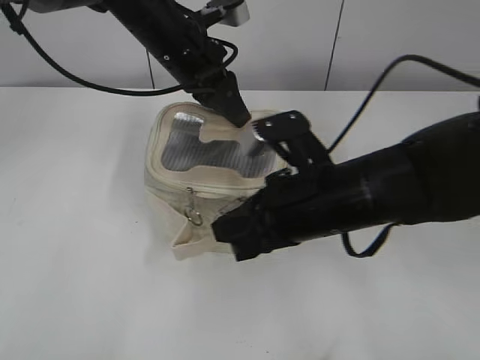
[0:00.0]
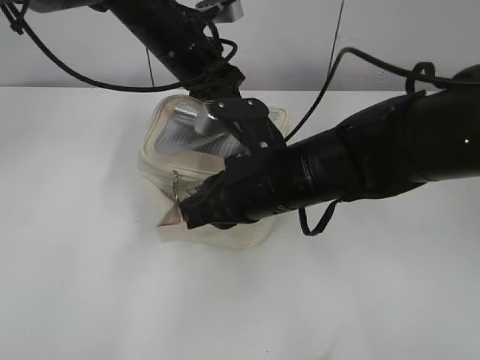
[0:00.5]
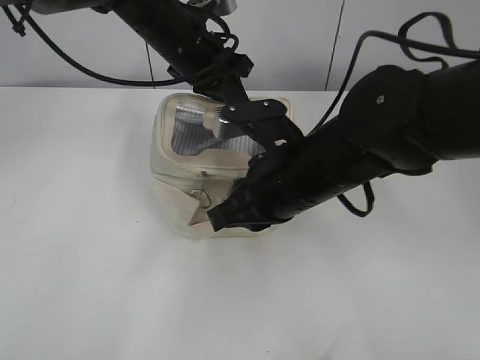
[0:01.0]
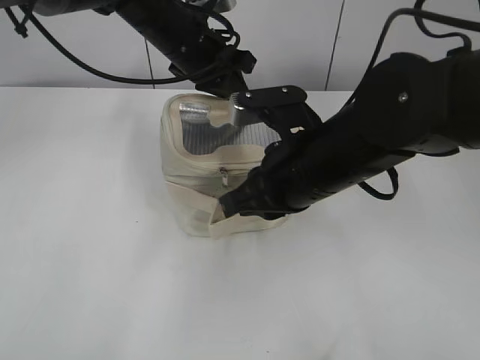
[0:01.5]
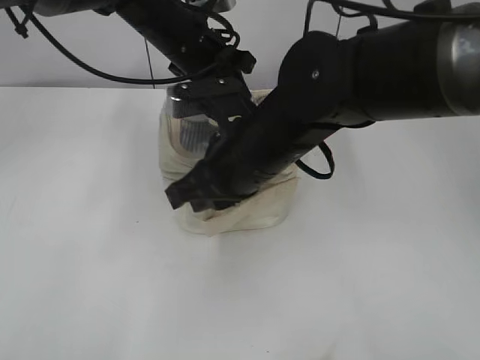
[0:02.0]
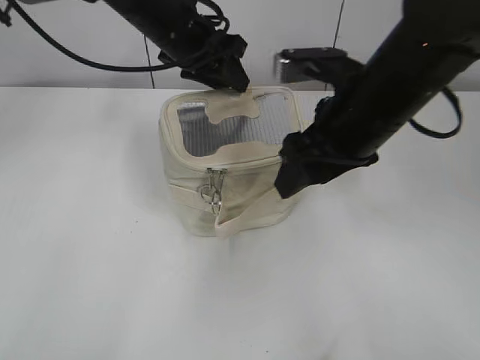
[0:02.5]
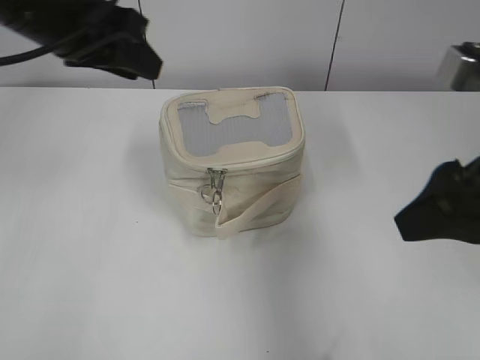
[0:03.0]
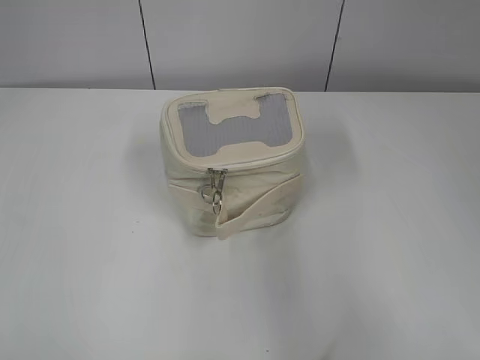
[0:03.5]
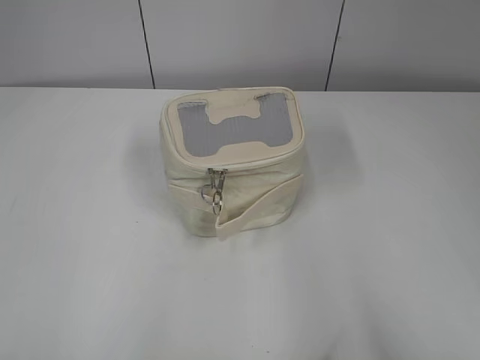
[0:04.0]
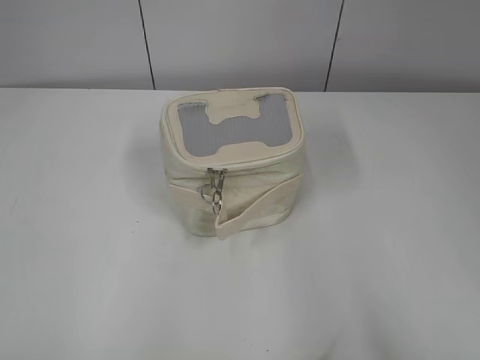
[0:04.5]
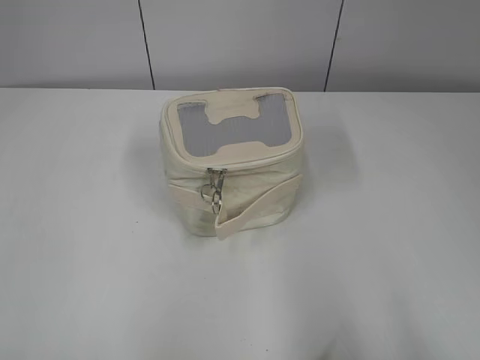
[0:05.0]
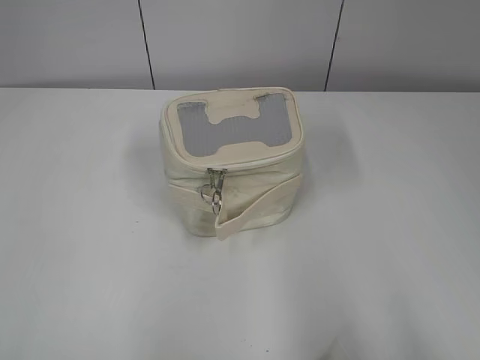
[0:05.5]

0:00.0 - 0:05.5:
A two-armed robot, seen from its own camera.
Step, 0:00.0 - 0:02.0: Zip up the bag with your right hand.
0:00.0 - 0:02.0: The right gripper travels to the left by some 10 cm.
0:02.0 - 0:03.5: The left gripper travels backward and to the left by some 40 cm, and opens up. Meanwhile the right gripper heads to the right, backward and upward, covering some 35 cm, and opens its fingers.
0:03.5 - 0:05.5: Both grippers move backward, roughly 5 cm.
